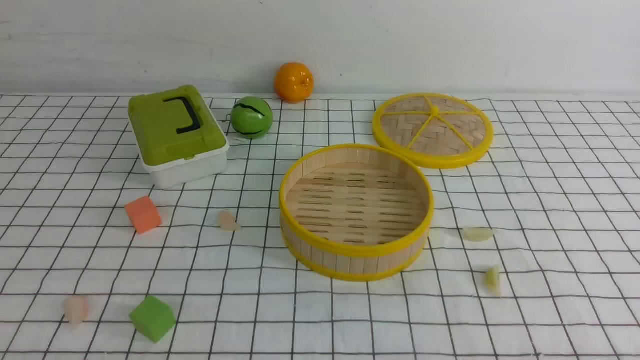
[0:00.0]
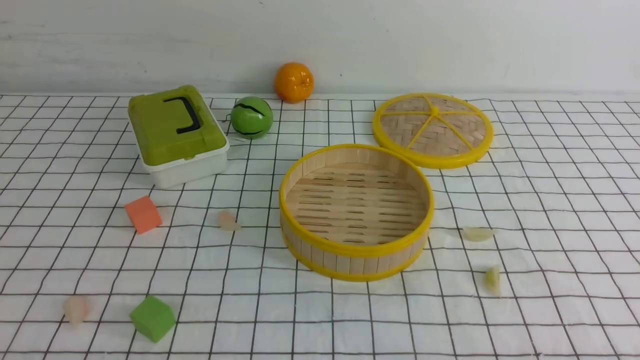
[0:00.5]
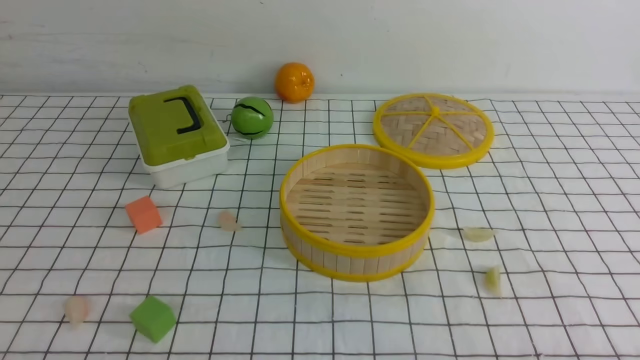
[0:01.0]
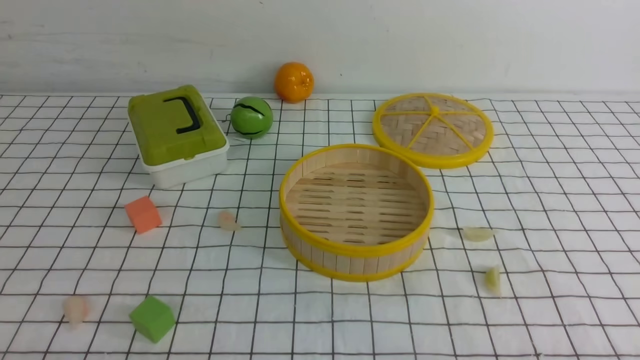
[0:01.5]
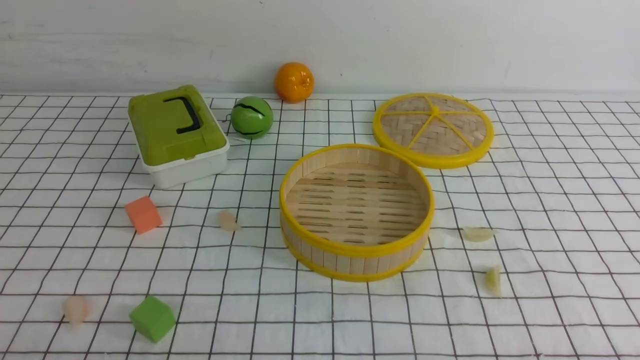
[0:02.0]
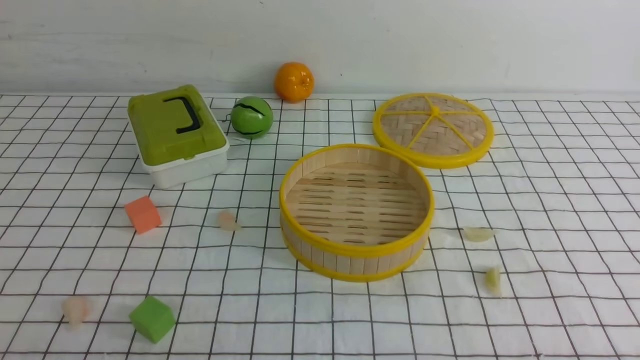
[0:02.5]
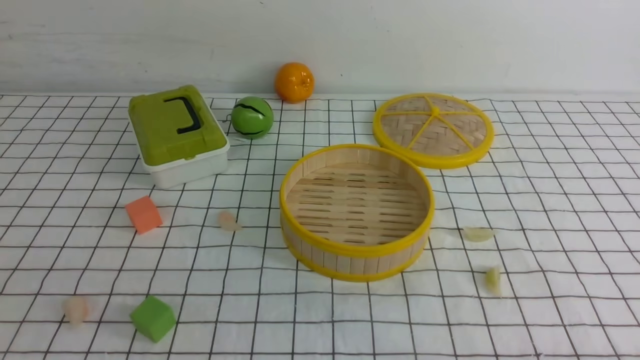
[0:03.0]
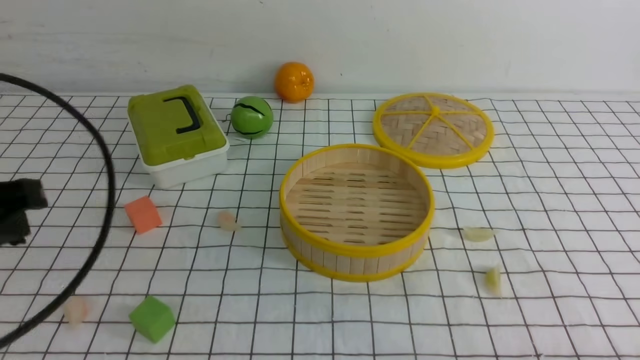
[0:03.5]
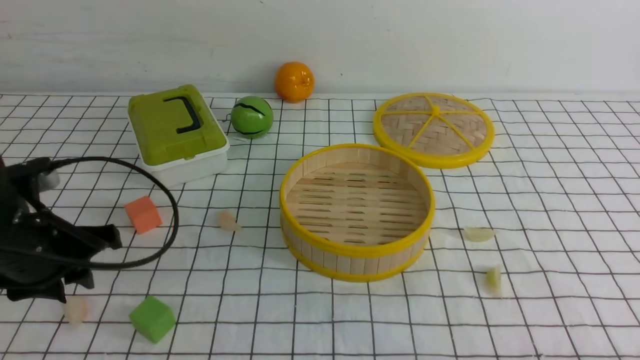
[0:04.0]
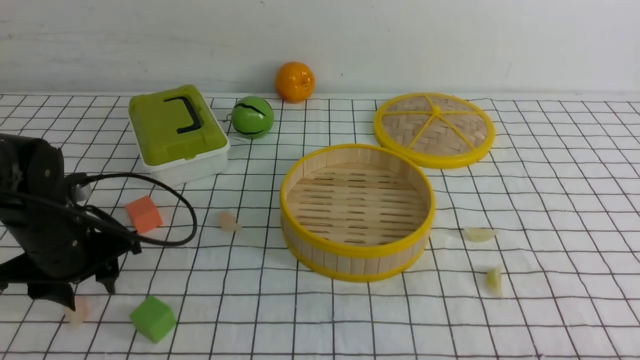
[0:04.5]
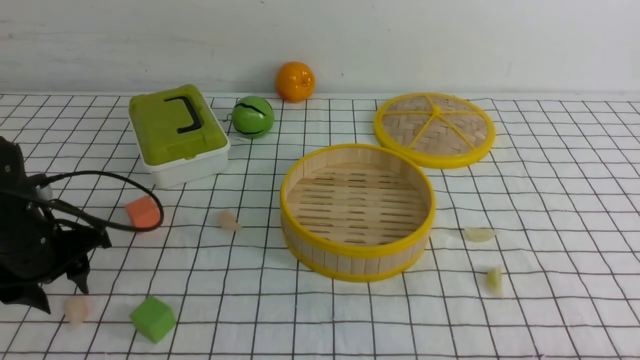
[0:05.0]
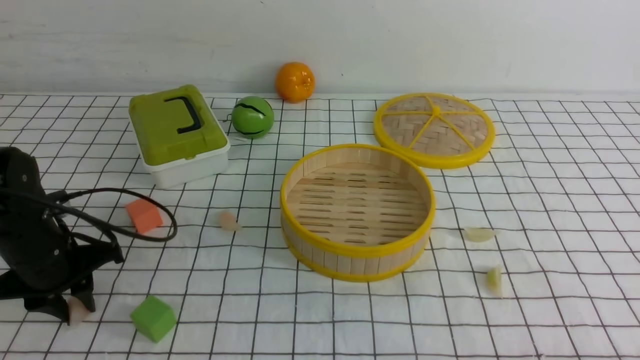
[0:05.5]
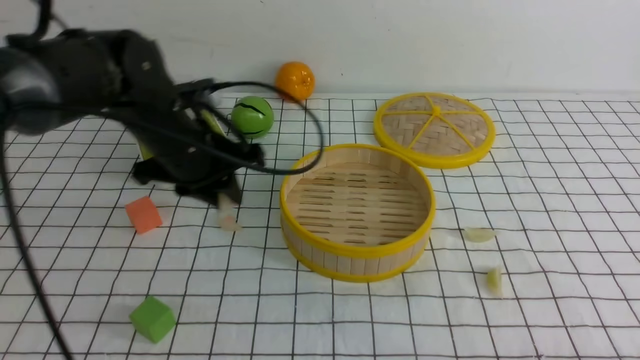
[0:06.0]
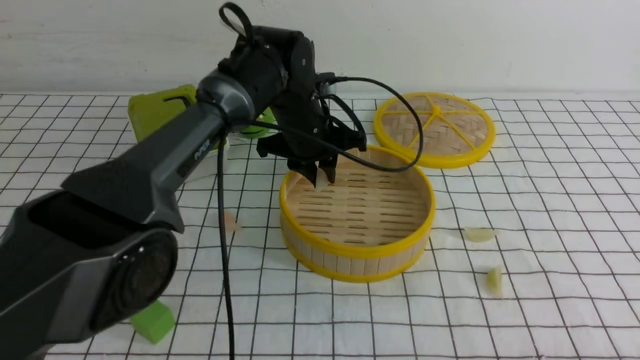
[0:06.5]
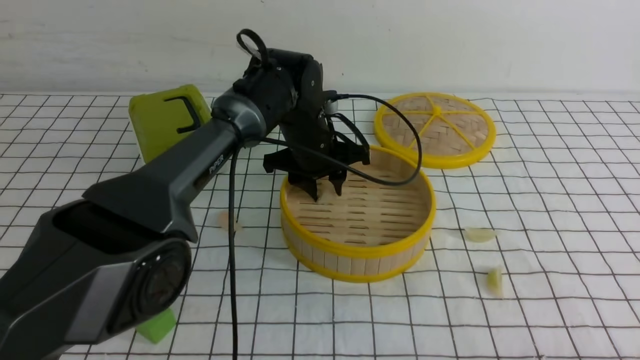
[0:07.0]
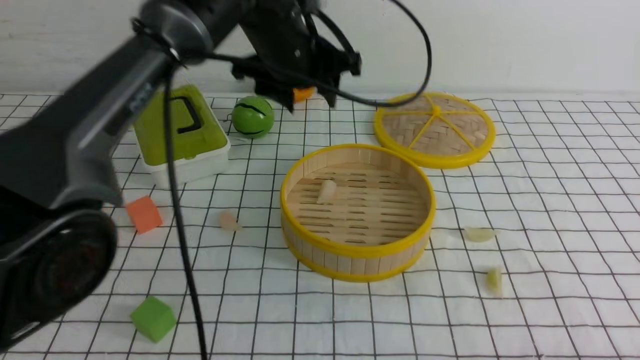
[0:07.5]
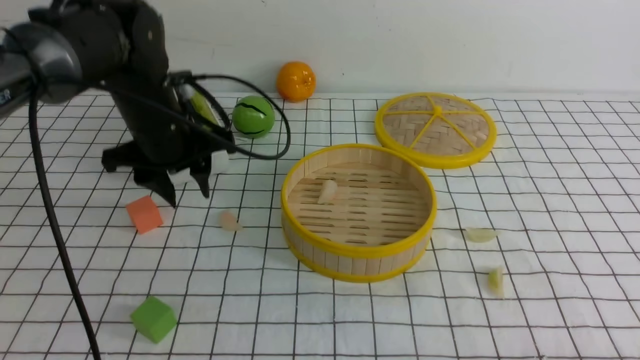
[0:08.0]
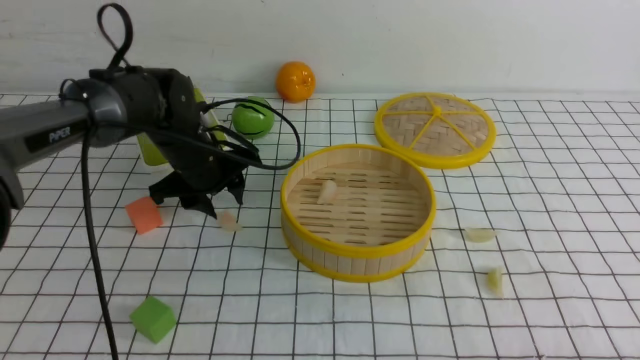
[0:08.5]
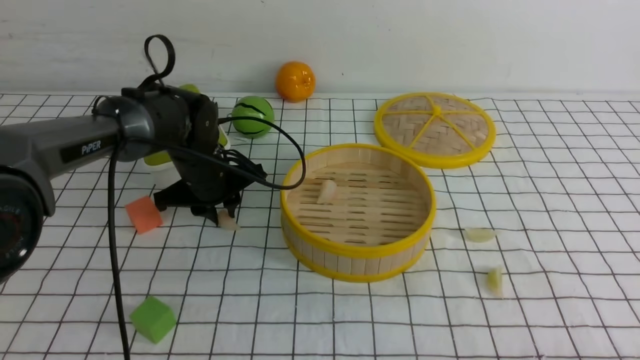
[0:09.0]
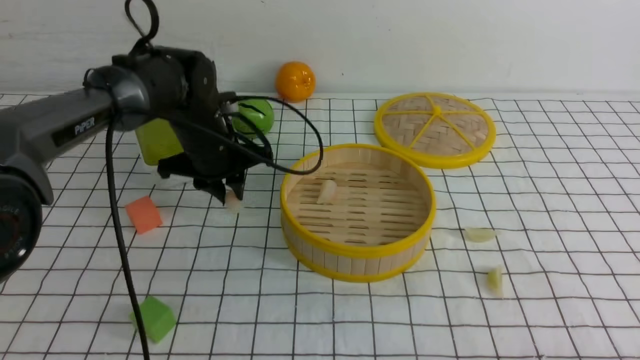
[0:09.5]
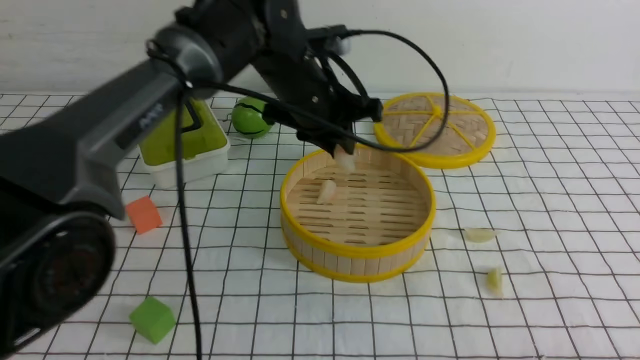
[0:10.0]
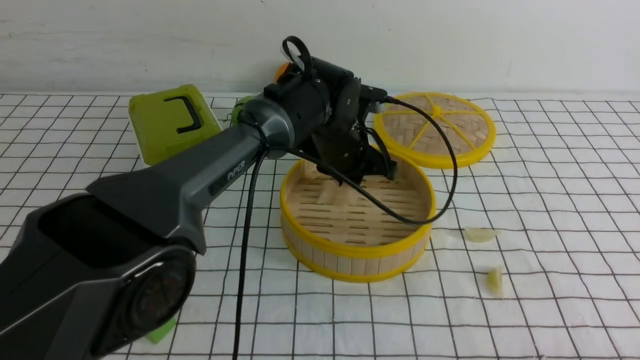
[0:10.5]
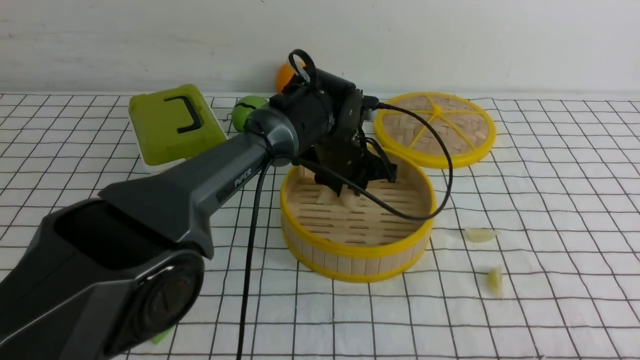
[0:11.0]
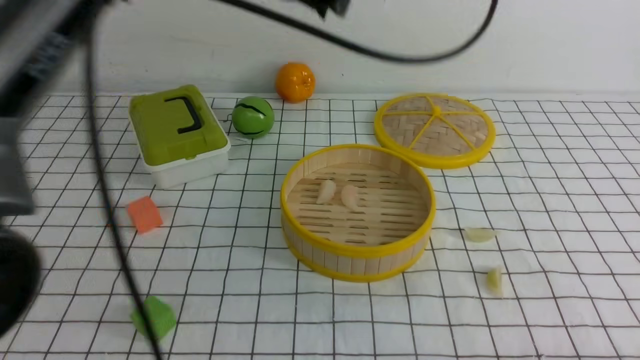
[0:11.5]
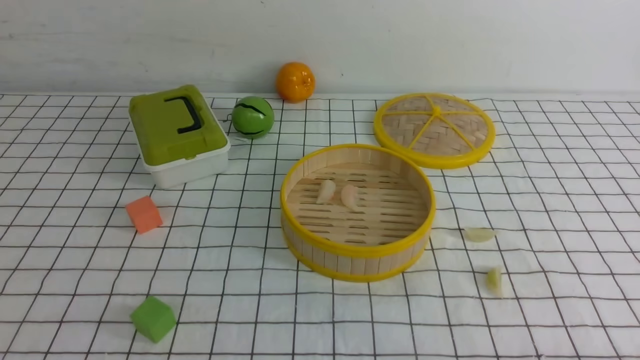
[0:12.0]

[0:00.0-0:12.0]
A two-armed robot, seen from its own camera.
Task of the whole recording: put the dumplings into the steamer on the table with the white tablecloth.
Step, 0:00.0 to 0:05.5: use the left arm to grab a dumpling.
Step, 0:06.0 to 0:07.0: use the left arm to put the dumpling into the steamer.
Step, 0:07.5 to 0:09.5: use the left arm to grab a dumpling.
Step, 0:10.0 to 0:11.5: use the left arm to put the dumpling into the steamer.
0:02.0 to 0:04.0: The left gripper shifts approximately 20 cm forward.
0:04.0 to 0:06.0: The left gripper shifts some 15 cm to the right and forward.
0:06.0 to 0:08.0: The left gripper goes to the right and returns, roughly 10 cm each way, and opens.
0:08.0 to 0:10.0: The left gripper moves to the right, roughly 15 cm, and closes up.
0:10.0 to 0:12.0: The left gripper heads upward, backward and to the left, covering about 40 cm, and closes up.

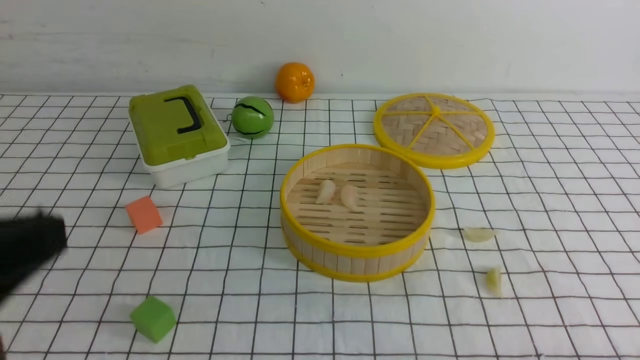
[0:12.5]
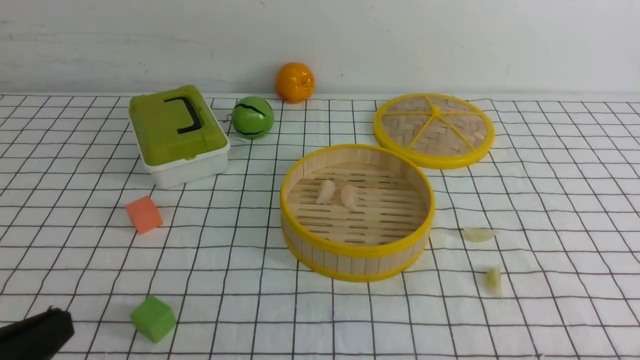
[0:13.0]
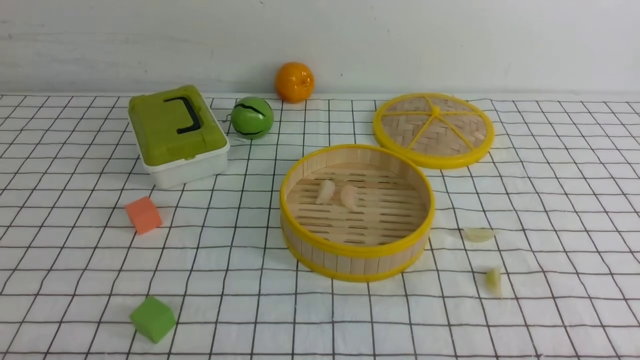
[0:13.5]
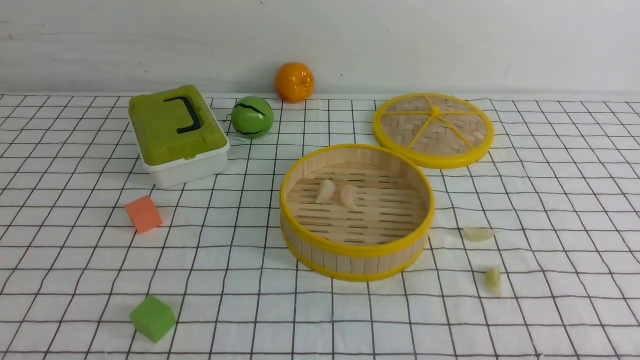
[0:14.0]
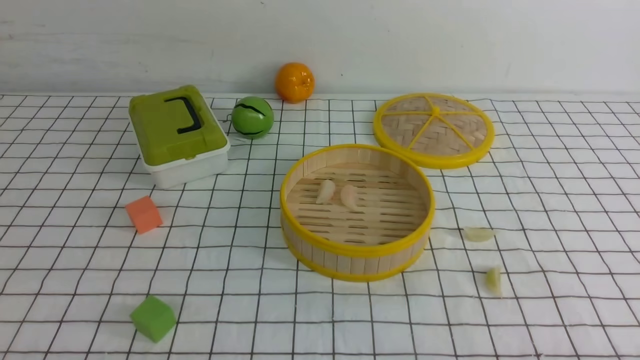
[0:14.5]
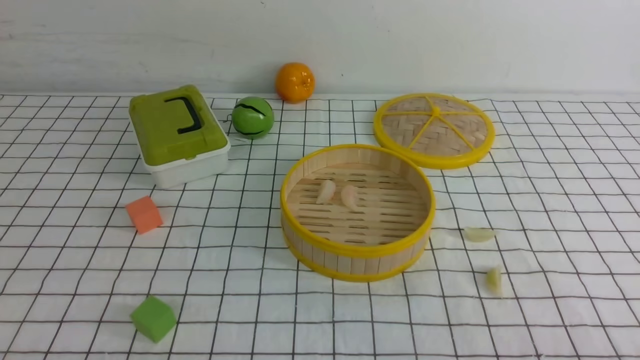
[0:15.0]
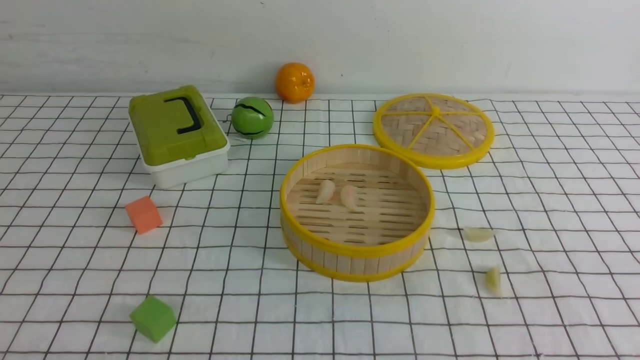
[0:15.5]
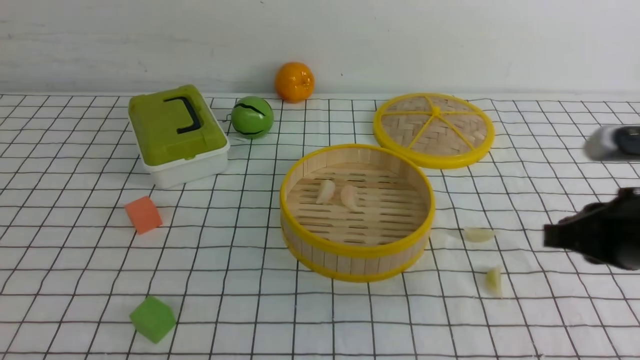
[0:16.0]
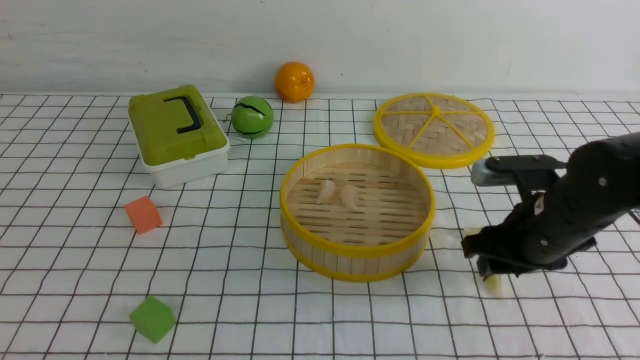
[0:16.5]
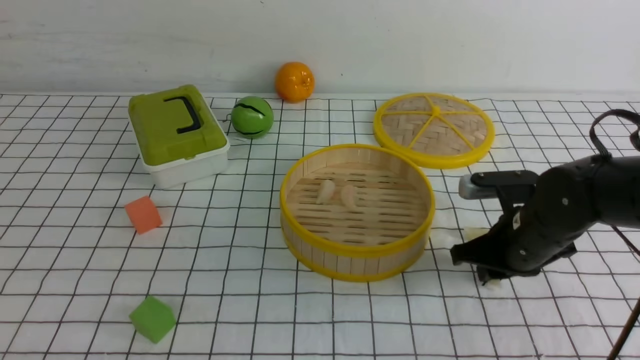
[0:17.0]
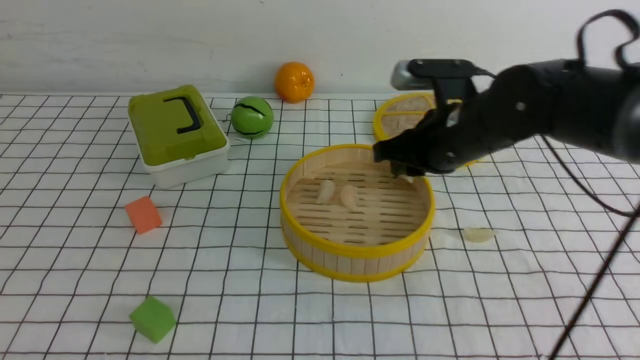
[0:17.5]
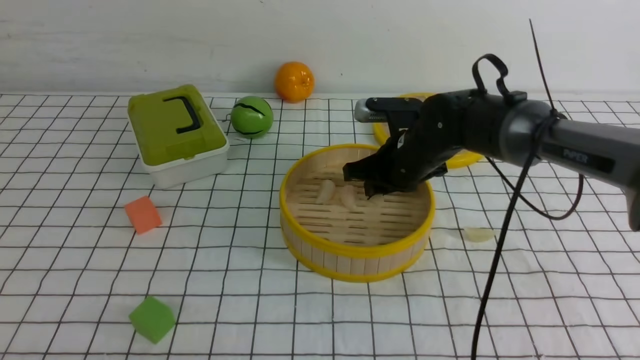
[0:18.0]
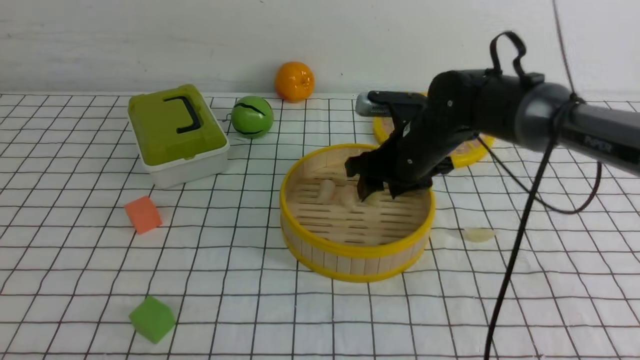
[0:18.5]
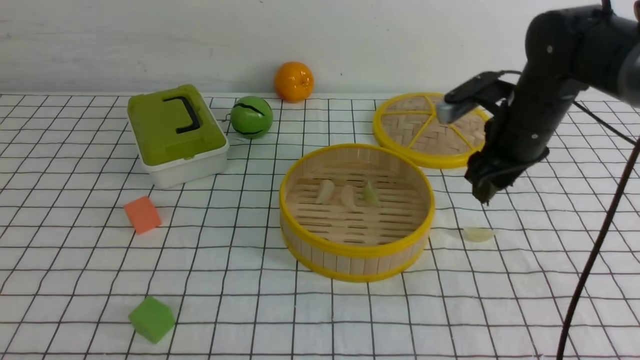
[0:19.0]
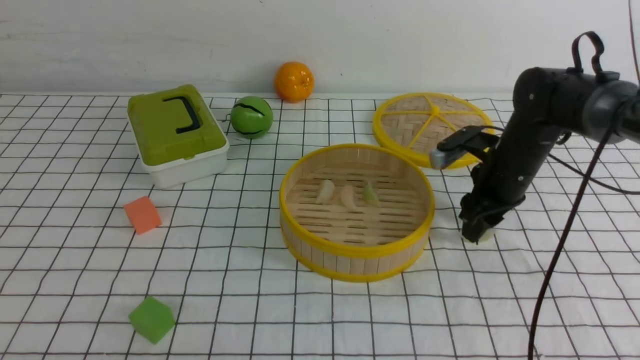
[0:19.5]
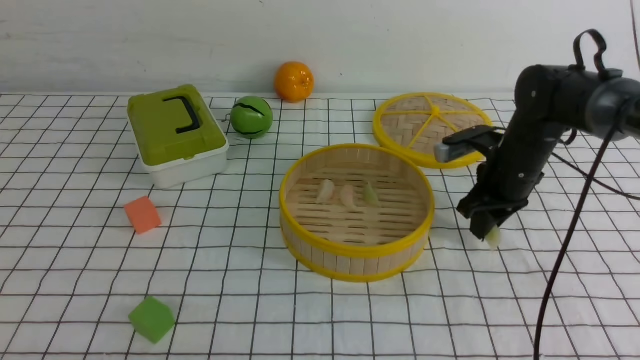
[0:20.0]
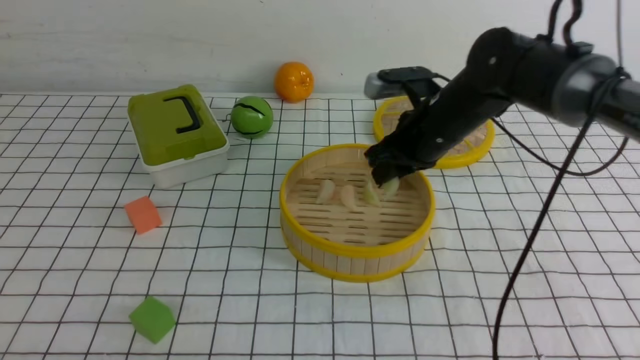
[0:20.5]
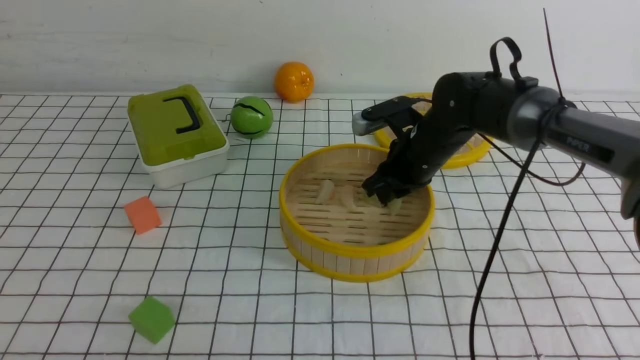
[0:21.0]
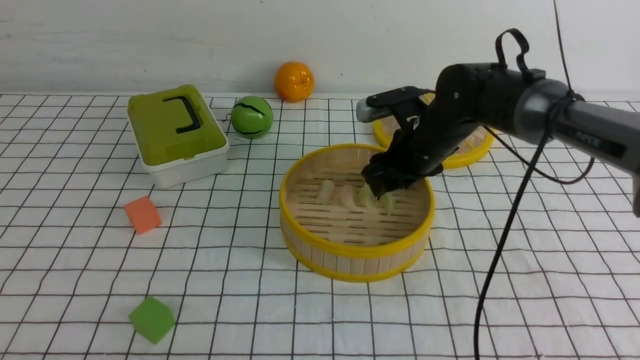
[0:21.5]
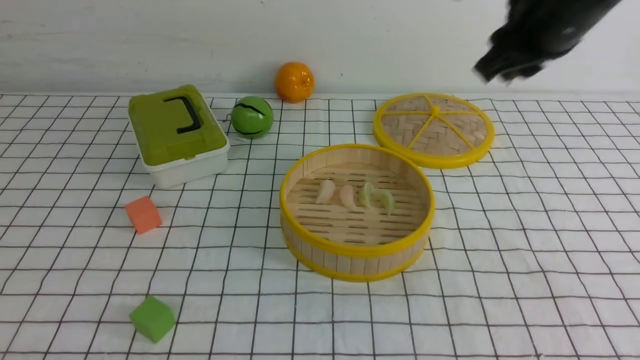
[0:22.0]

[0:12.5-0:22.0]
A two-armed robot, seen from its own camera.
Task of the whole recording: put the dumplings into the steamer on the table with the white tablecloth.
Step, 0:12.5 to 0:17.0: use the right arm to grab a dumpling.
Step, 0:17.5 to 0:18.5: use the right arm to put the dumpling into the steamer.
Step, 0:19.0 to 0:20.0: use the right arm to grab a dumpling.
Step, 0:20.5 to 0:21.5: use the right arm to put the dumpling into the steamer.
0:12.5 to 0:14.5: The left gripper shifts about 20 cm downward.
0:14.5 to 0:16.5: The right gripper heads forward, covering about 25 cm, and closes, then opens again.
0:16.5 to 0:18.0: The right gripper heads forward and to the left, covering about 15 cm.
0:18.0 to 0:20.0: The right gripper heads to the right, covering approximately 10 cm, and opens and closes again.
0:20.0 to 0:22.0: The right gripper is displaced upward by approximately 20 cm, and opens, then closes again.
